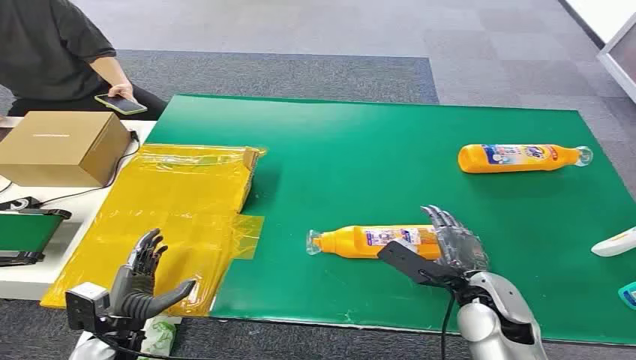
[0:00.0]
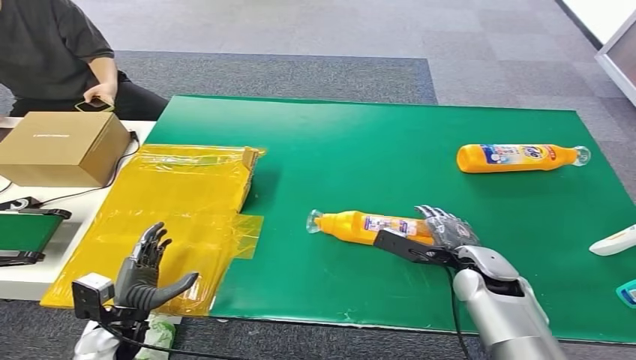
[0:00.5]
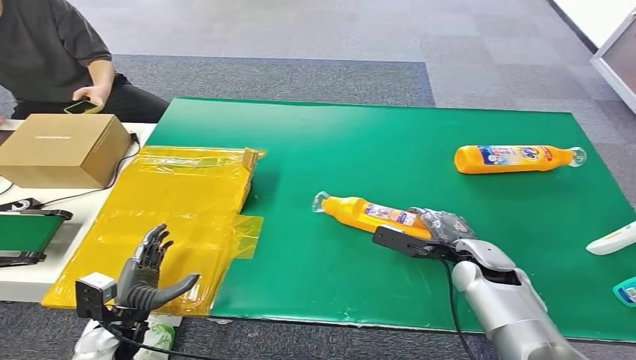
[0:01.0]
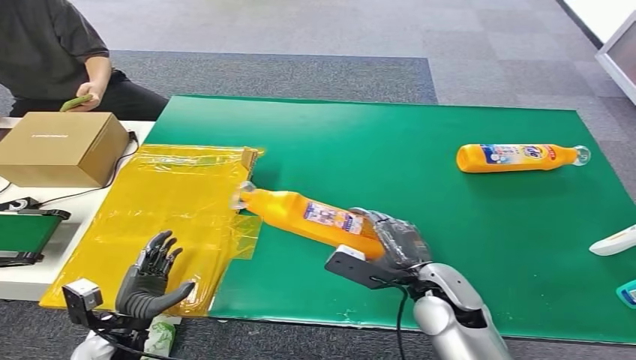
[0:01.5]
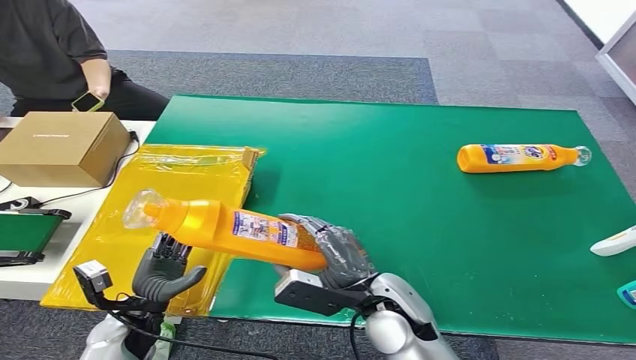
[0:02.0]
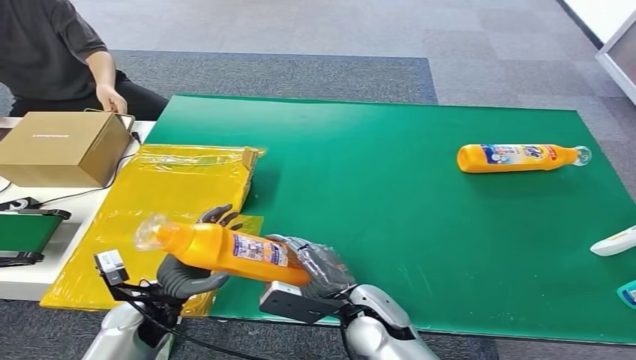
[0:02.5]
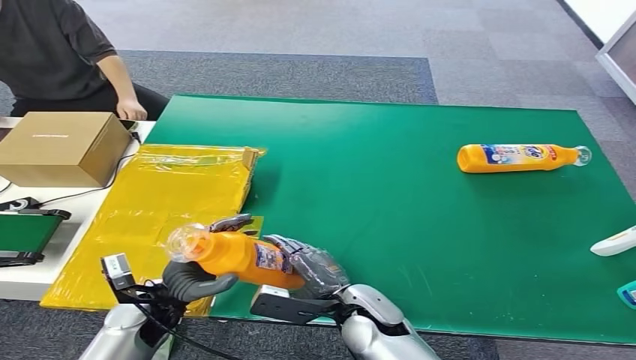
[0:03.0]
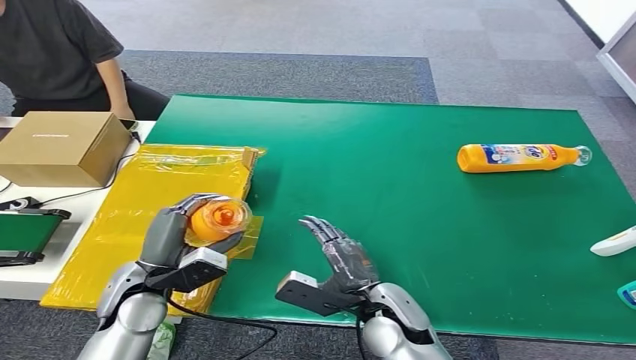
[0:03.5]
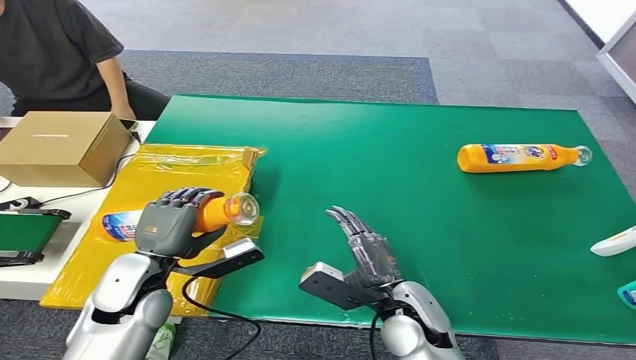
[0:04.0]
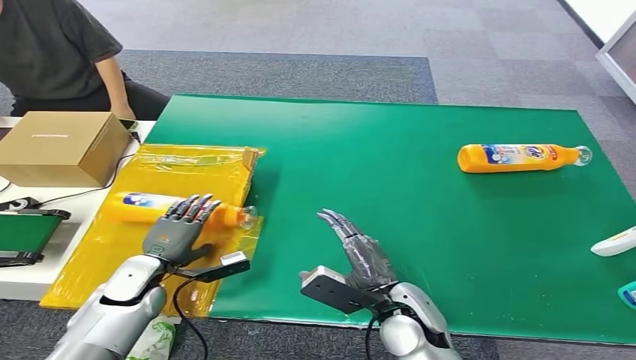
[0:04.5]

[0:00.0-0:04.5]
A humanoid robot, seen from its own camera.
Step, 0:00.0 to 0:01.5: Pick up the bottle from the table.
Step, 0:02.0 to 0:04.5: Turn the bottle to the front side.
0:02.0 to 0:04.5: The left hand goes approximately 5 cm forward, and reaches roughly 10 cm upward, then returns.

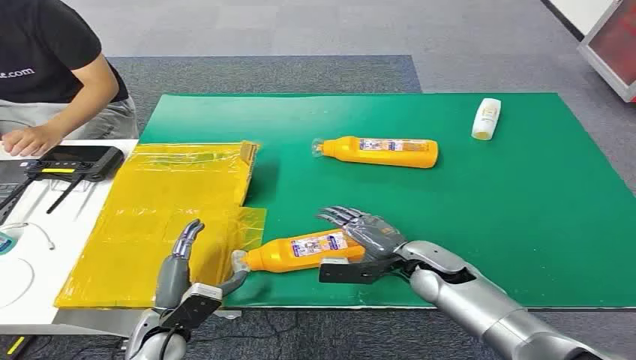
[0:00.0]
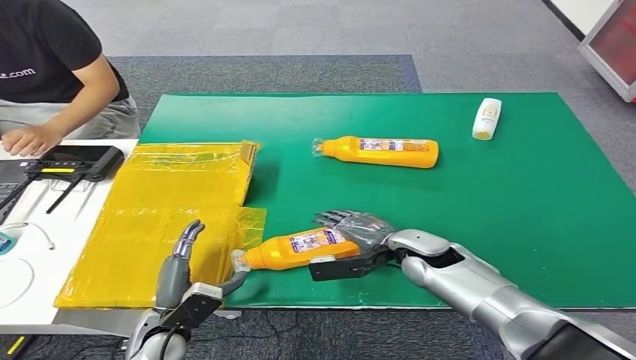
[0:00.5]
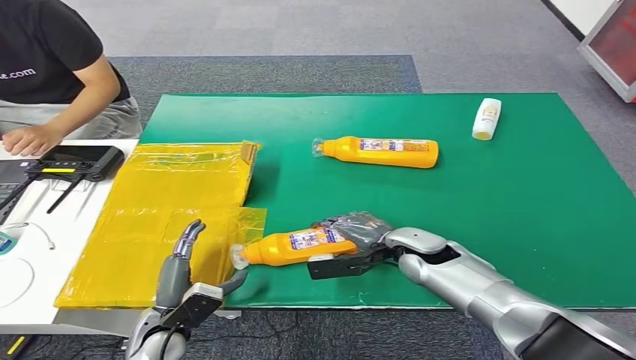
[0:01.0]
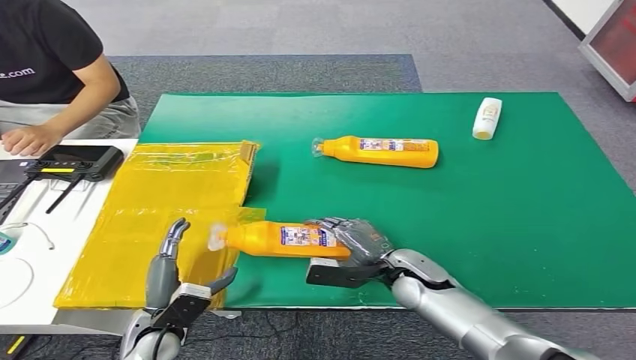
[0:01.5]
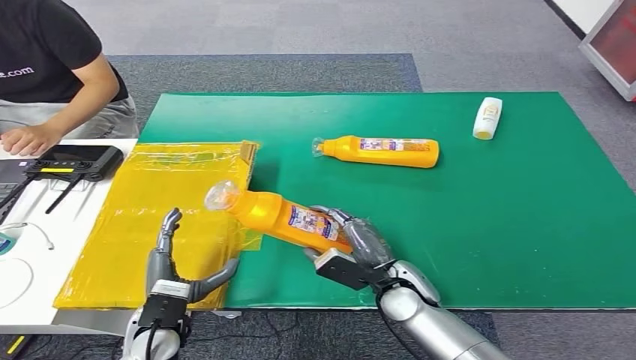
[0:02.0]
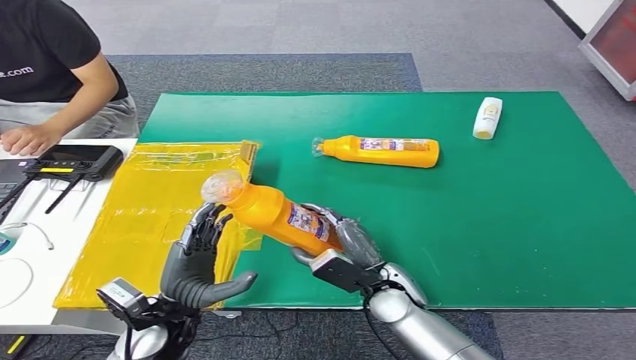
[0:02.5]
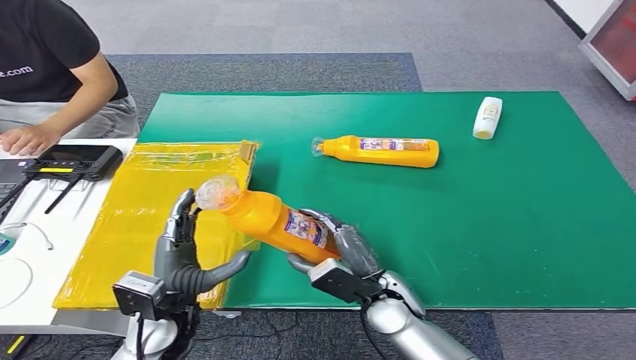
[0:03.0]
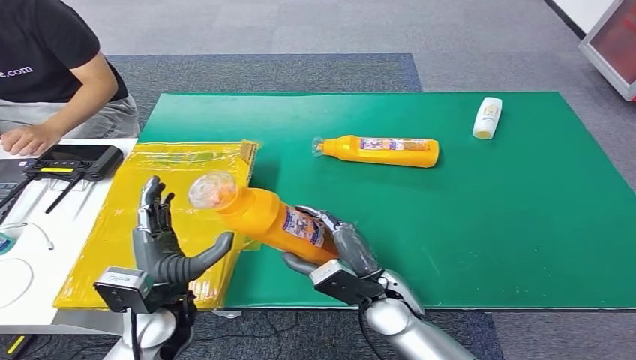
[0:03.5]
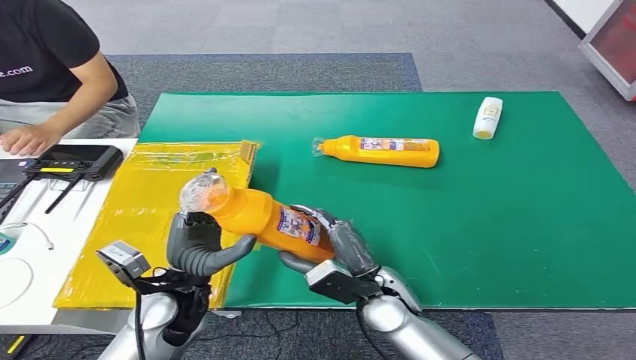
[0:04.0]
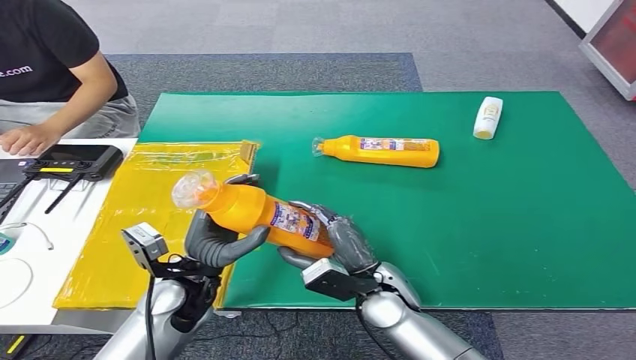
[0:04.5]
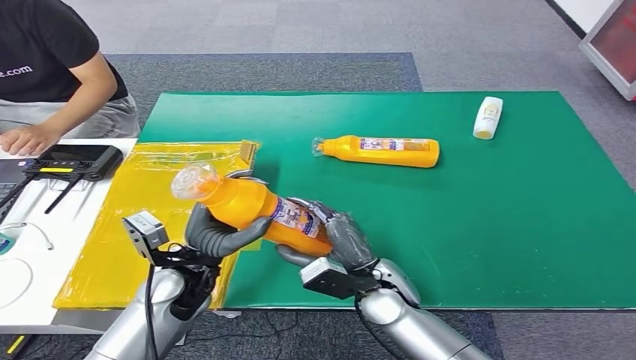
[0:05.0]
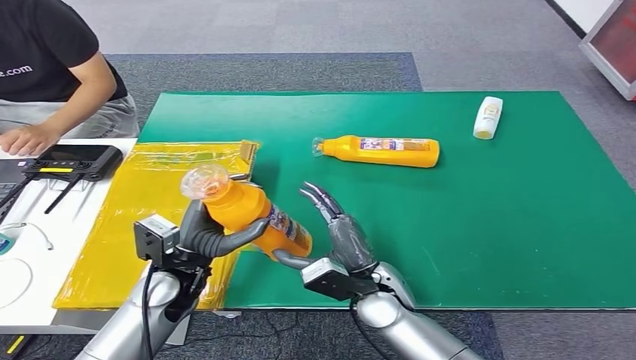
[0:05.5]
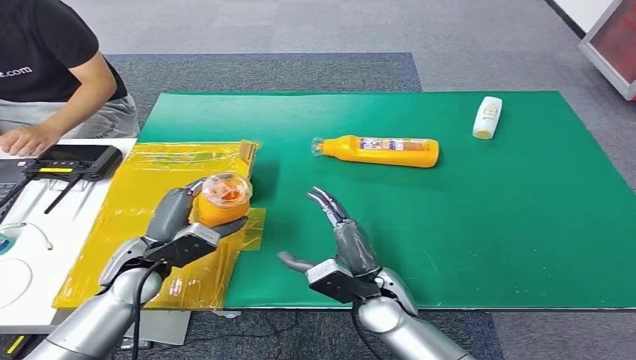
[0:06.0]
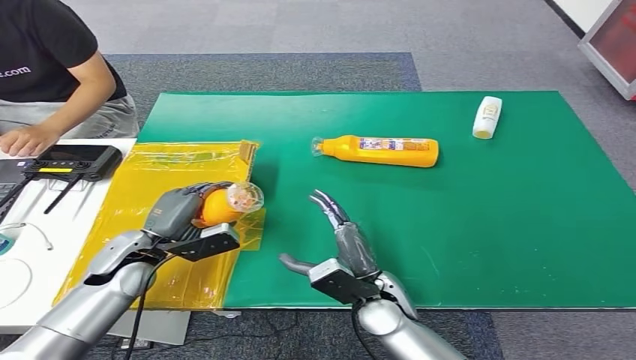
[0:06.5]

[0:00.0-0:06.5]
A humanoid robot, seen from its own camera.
Step, 0:00.0 to 0:02.5: Pick up the bottle from the table.
Step, 0:03.0 to 0:06.5: Turn the bottle to the front side.
0:02.0 to 0:04.5: The left hand shifts some 10 cm upward and forward.
0:04.5 to 0:06.5: The left hand heads to the left and forward, covering about 10 cm.
